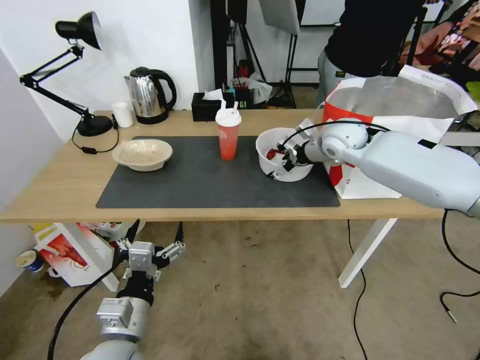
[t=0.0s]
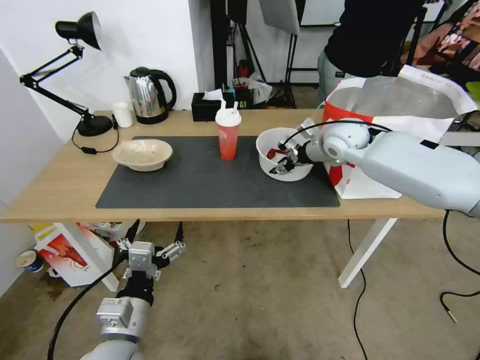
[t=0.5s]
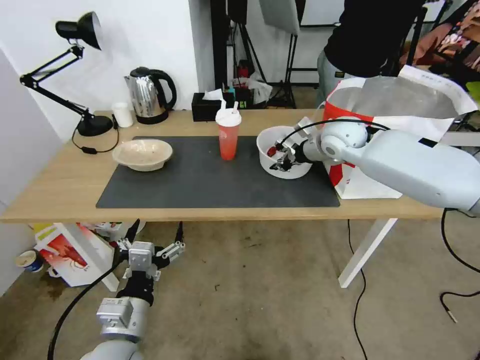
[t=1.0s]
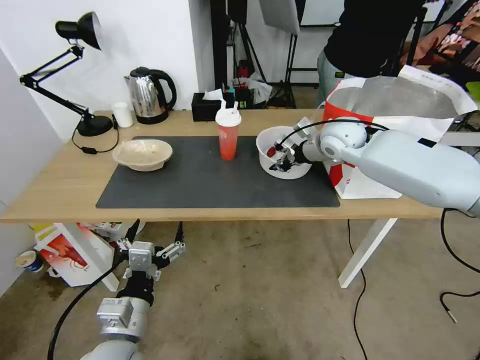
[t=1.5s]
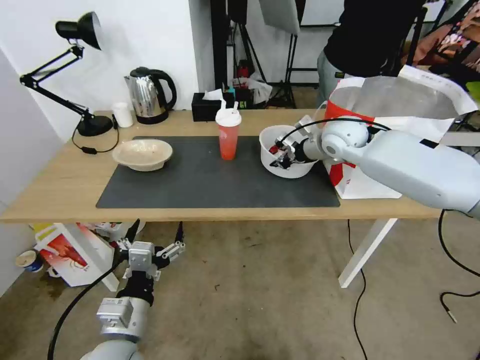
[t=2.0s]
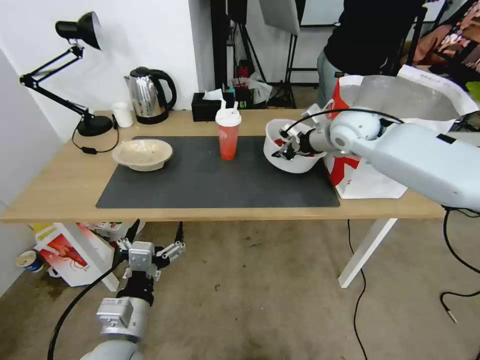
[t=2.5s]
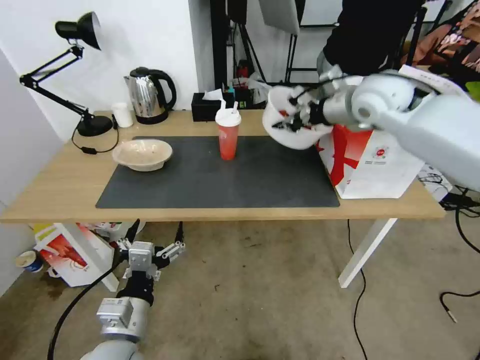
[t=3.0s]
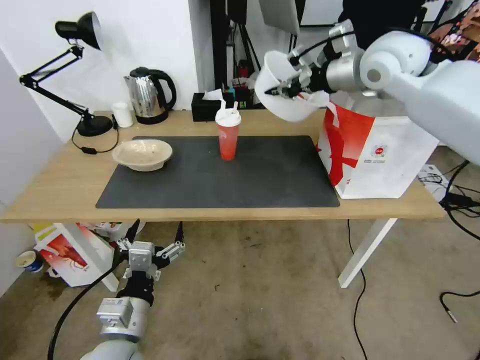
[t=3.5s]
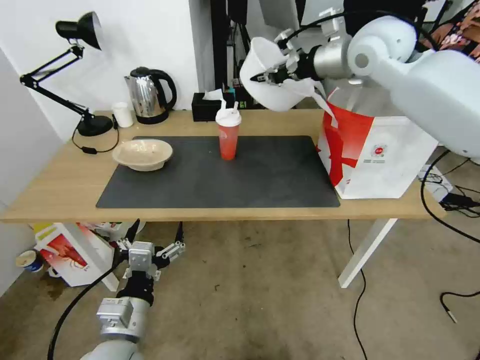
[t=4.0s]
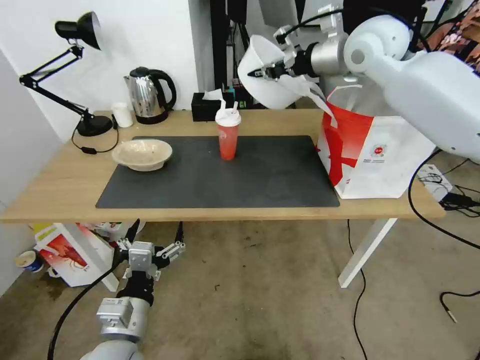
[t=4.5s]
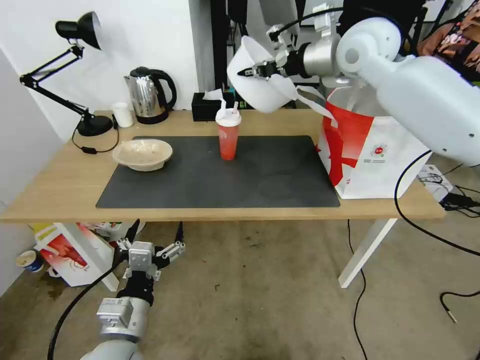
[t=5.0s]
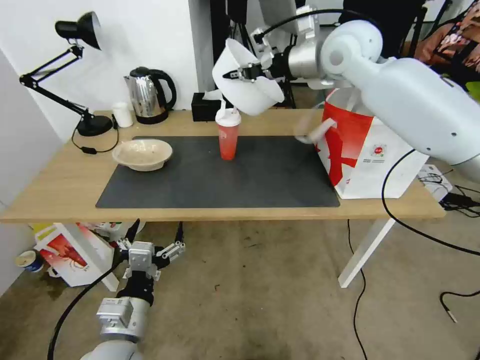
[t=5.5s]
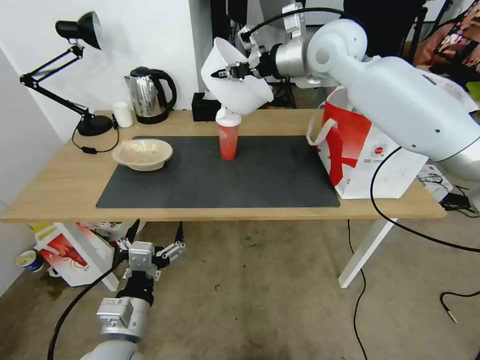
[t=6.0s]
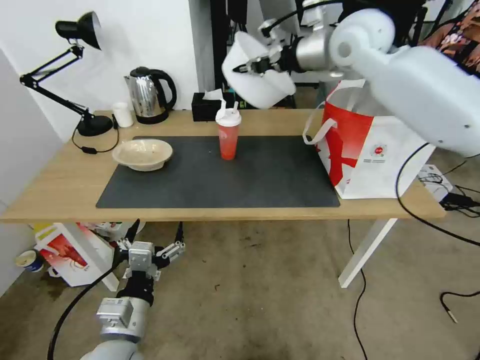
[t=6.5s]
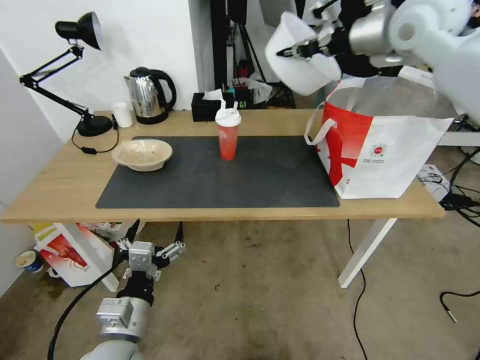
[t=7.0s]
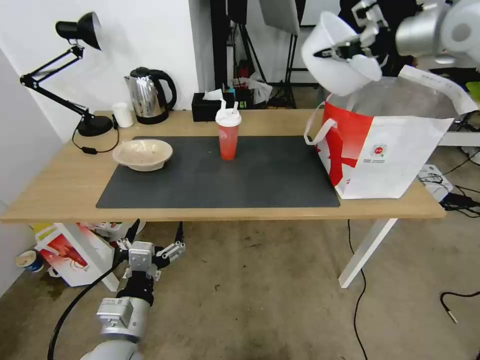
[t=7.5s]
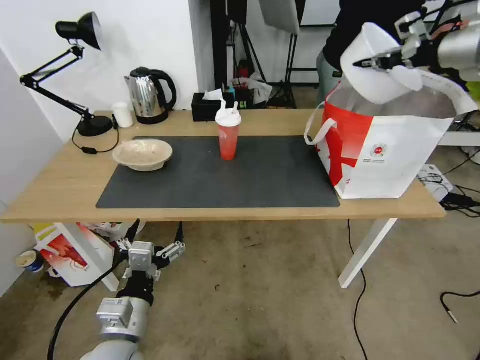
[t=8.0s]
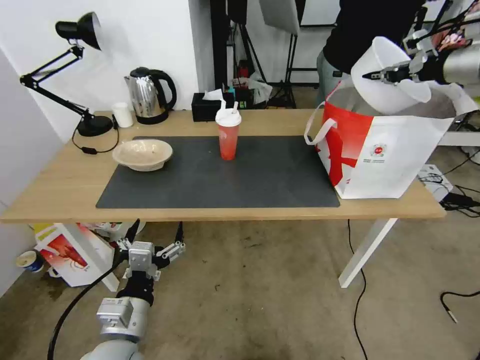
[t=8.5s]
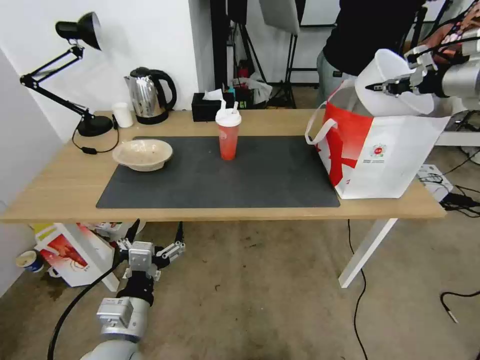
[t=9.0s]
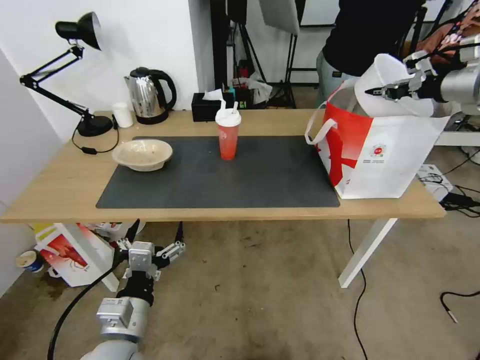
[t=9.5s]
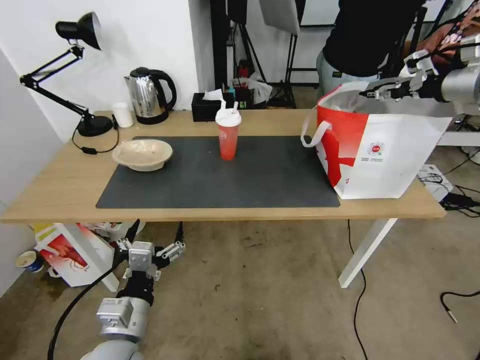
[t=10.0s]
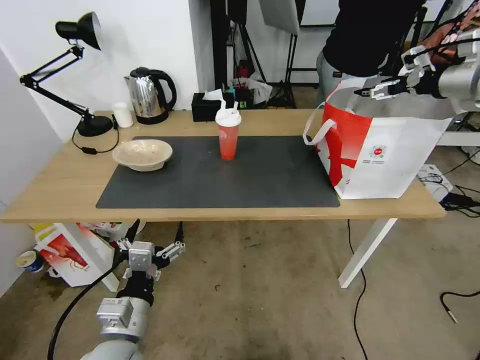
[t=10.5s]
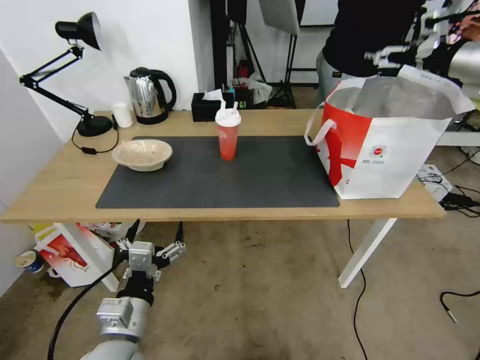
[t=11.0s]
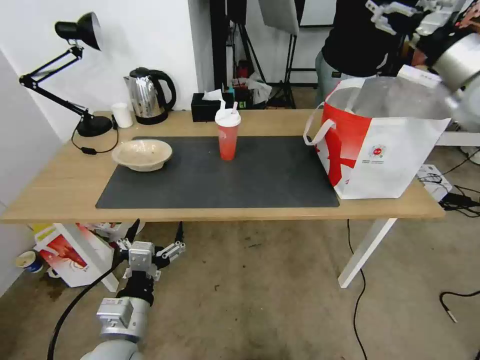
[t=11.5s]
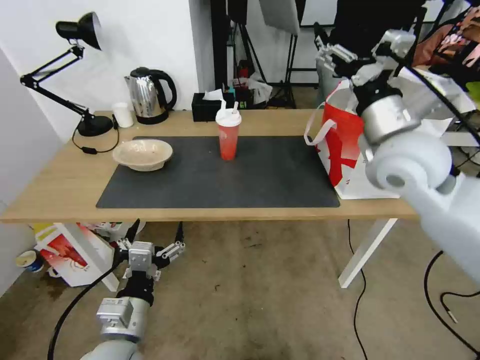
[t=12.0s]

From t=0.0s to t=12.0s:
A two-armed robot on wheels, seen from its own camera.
Task of the whole recording: Pick up the trash from the table and place it into the takeout bag.
From t=0.0s to t=2.0s: The right gripper closes.
From t=2.0s to t=4.0s: The right gripper travels upward by some 20 cm.
From t=4.0s to t=6.0s: The right gripper is displaced to the left by approximately 5 cm.
From t=6.0s to t=8.0s: The right gripper is displaced to the right by roughly 30 cm.
From t=8.0s to t=10.0s: The right gripper heads downward, covering roughly 5 cm, and opens.
From t=10.0s to t=12.0s: The right gripper goes approximately 25 cm to the left and backward, and opens its fingers.

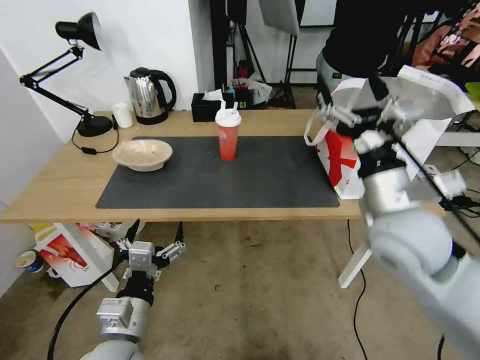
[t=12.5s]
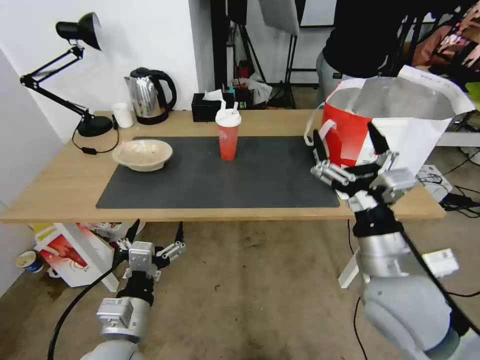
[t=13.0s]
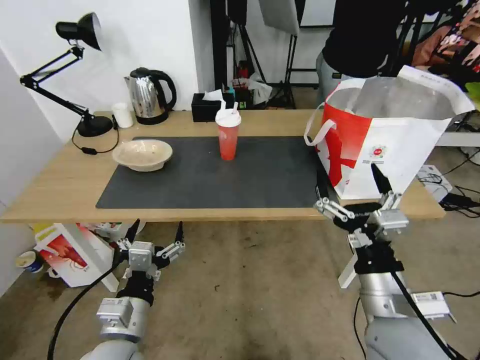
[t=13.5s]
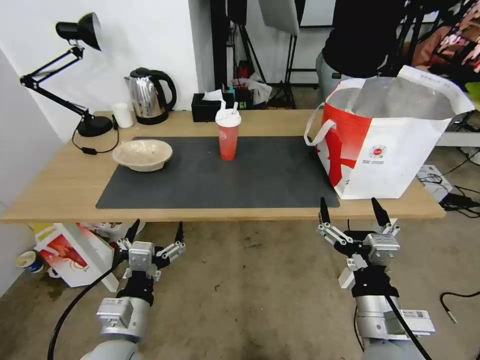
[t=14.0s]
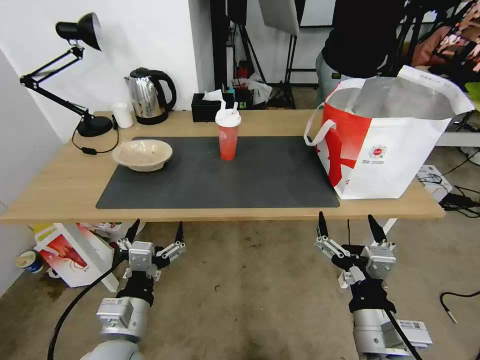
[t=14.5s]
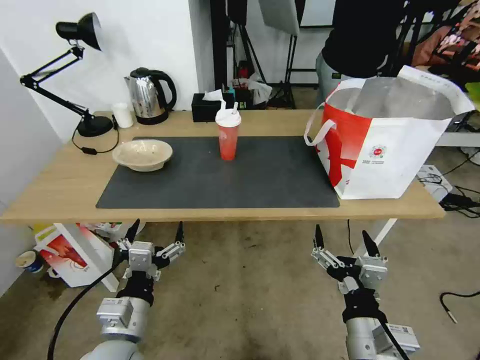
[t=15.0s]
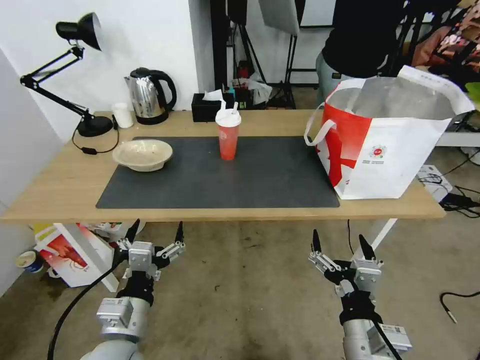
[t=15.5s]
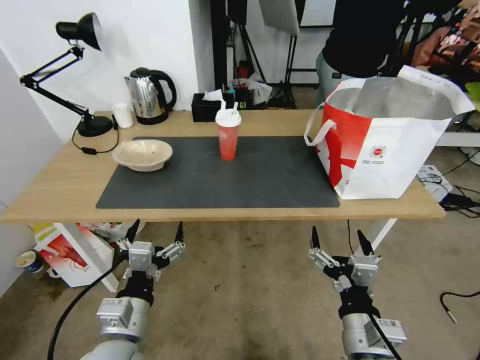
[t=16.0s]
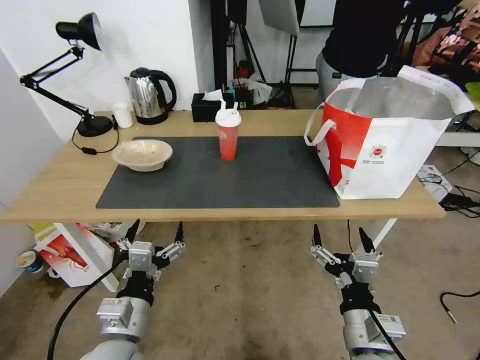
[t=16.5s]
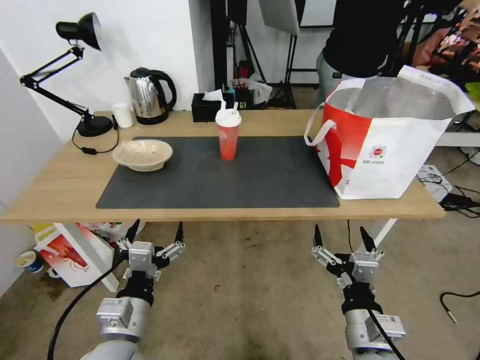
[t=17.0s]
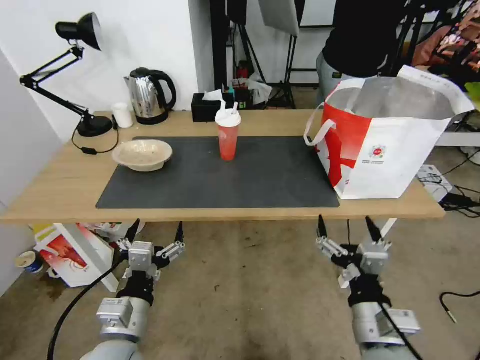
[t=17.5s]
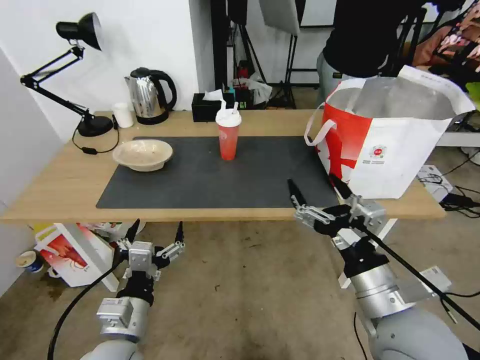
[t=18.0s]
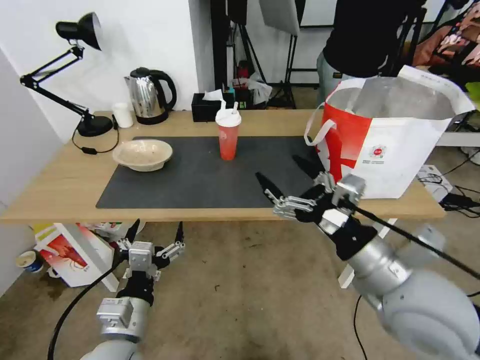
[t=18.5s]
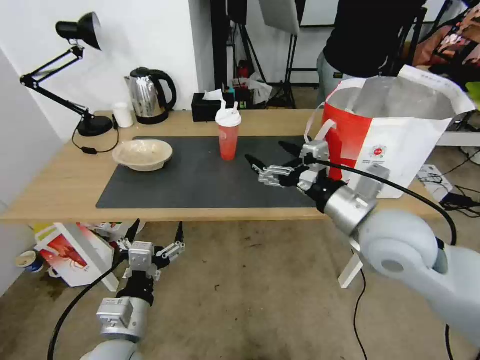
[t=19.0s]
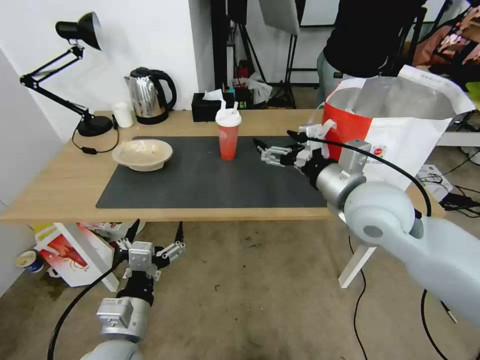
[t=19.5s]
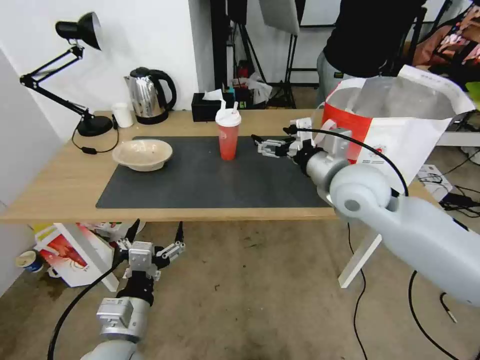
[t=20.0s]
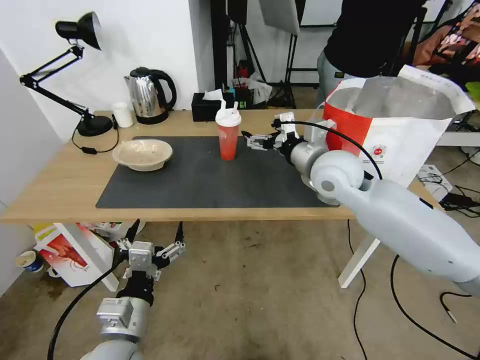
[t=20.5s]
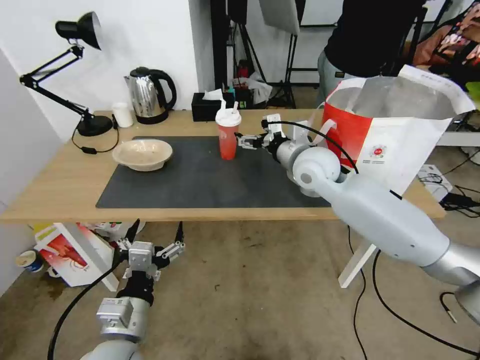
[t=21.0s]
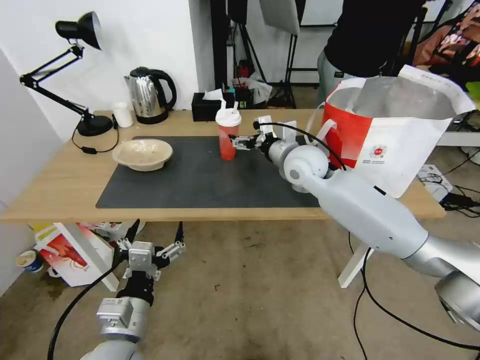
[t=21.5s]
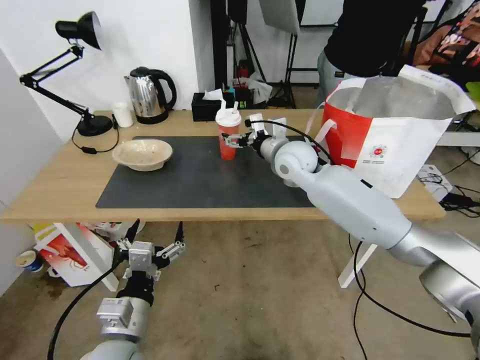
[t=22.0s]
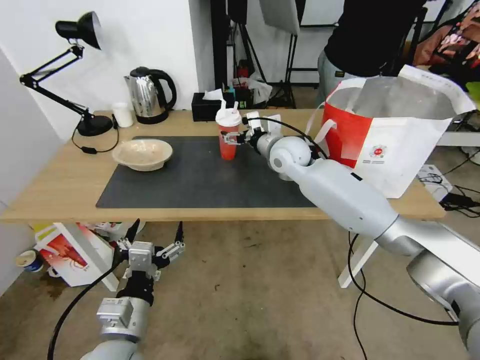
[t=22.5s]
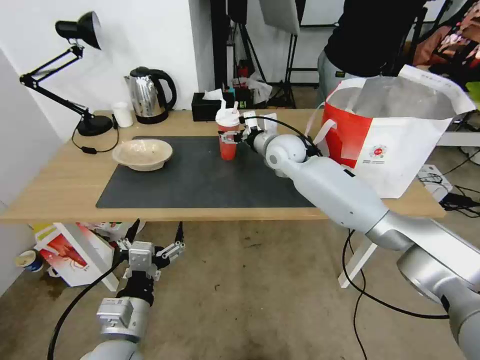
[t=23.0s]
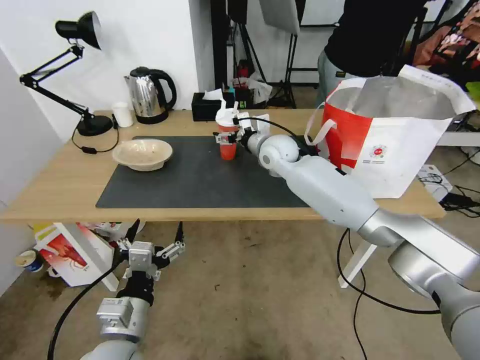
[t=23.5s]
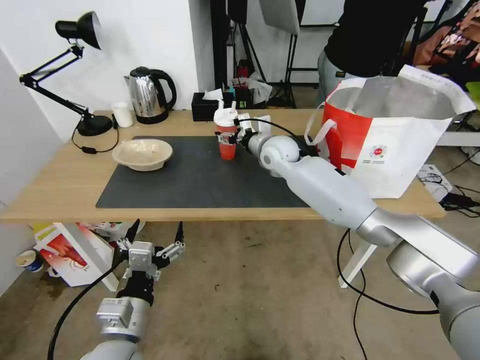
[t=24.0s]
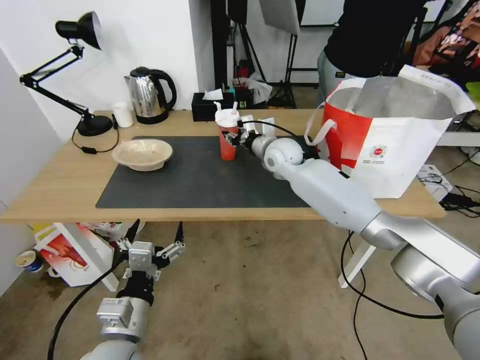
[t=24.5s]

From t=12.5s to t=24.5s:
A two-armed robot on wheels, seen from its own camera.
Task of the whole recording: Pick up the trash from the table and place it into the takeout bag.
From t=12.5s to t=14.5s: The right gripper shifts approximately 20 cm backward and downward.
From t=14.5s to t=16.5s: The grippers make only small movements.
From t=16.5s to t=18.5s: The right gripper moves upward and forward, approximately 15 cm.
From t=18.5s to t=20.5s: The right gripper is displaced forward by roughly 25 cm.
From t=20.5s to t=22.5s: The right gripper shifts roughly 10 cm forward and to the left.
From t=22.5s to t=24.5s: The right gripper closes its fingers.

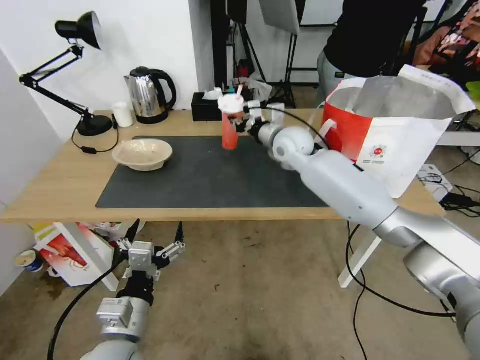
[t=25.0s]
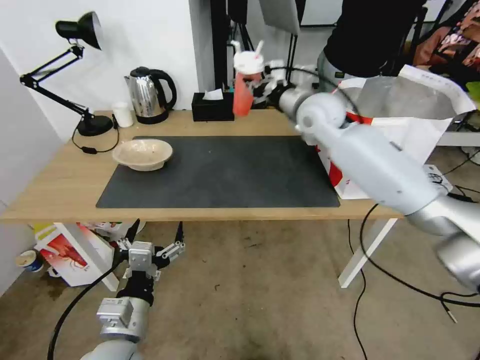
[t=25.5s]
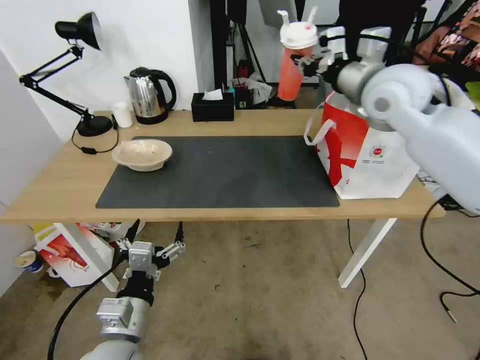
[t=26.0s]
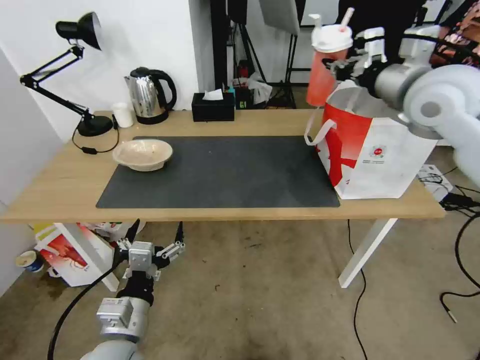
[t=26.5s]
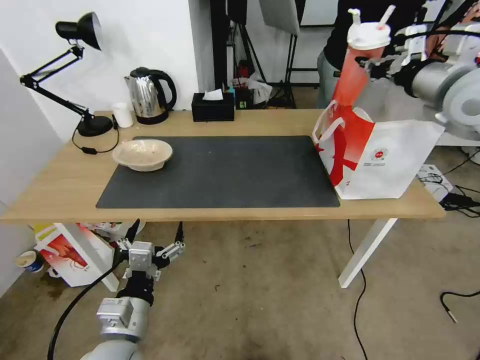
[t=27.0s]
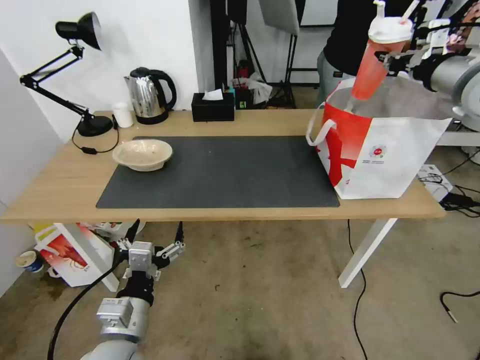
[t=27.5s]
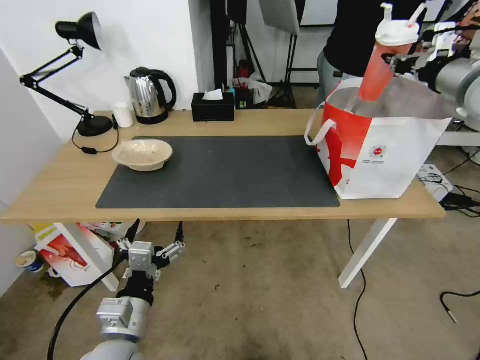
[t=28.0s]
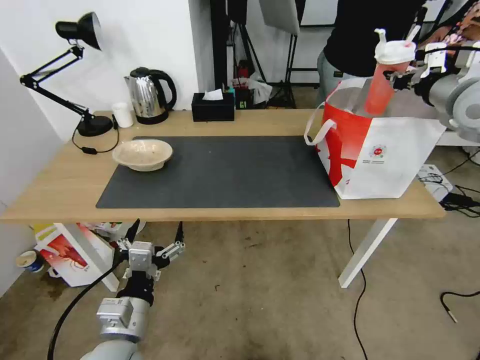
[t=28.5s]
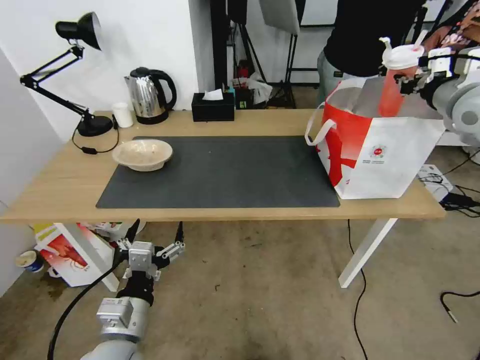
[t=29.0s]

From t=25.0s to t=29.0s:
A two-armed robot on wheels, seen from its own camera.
Task of the whole recording: Pick up the trash from the table and place it into the takeout bag.
From t=25.0s to t=27.0s: The right gripper heads to the right, upward and backward, covering about 35 cm.
From t=27.0s to t=29.0s: The right gripper moves to the right, approximately 5 cm.
